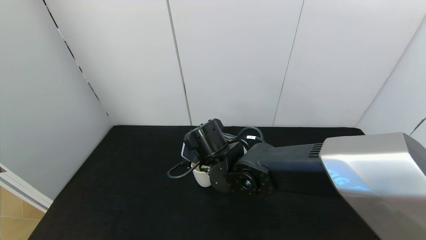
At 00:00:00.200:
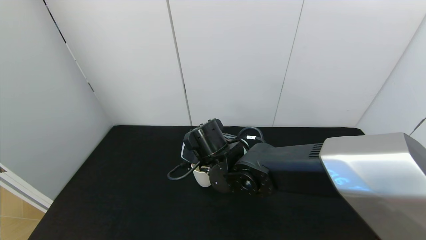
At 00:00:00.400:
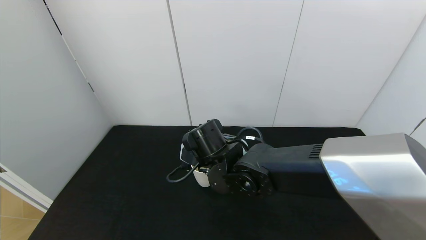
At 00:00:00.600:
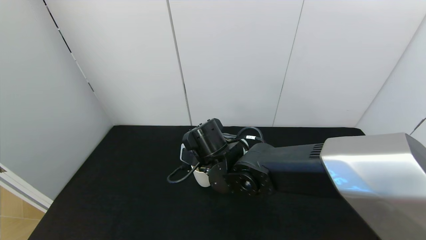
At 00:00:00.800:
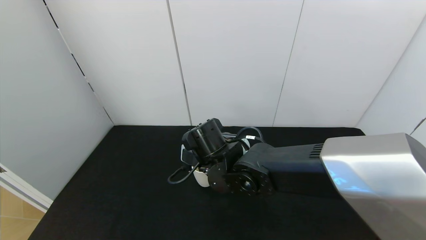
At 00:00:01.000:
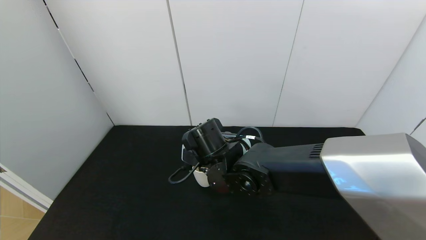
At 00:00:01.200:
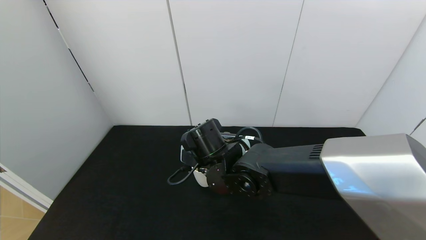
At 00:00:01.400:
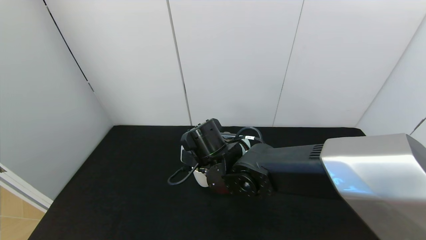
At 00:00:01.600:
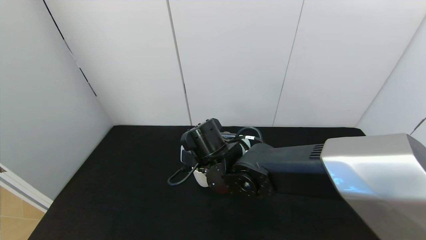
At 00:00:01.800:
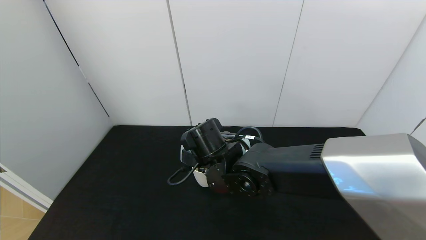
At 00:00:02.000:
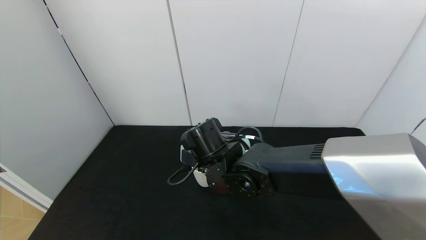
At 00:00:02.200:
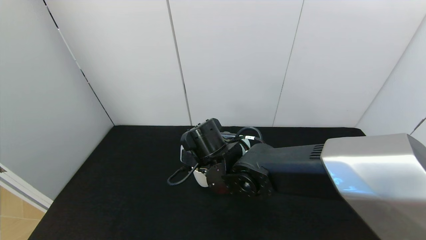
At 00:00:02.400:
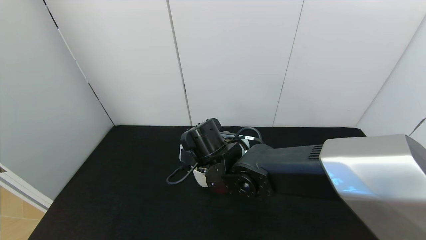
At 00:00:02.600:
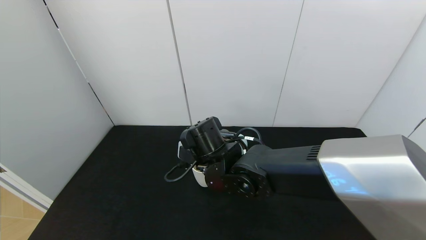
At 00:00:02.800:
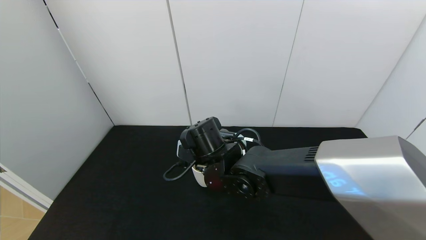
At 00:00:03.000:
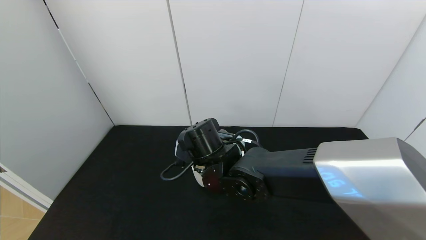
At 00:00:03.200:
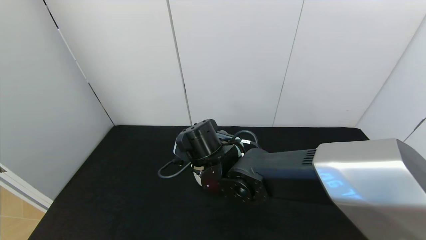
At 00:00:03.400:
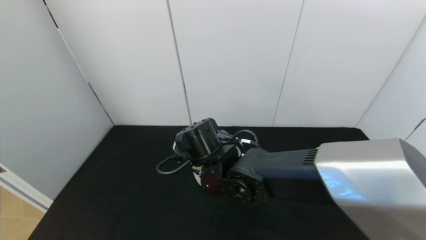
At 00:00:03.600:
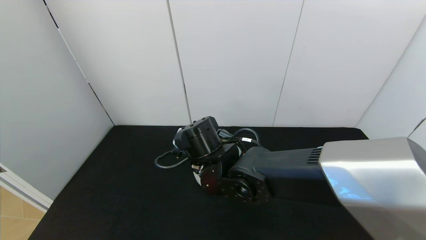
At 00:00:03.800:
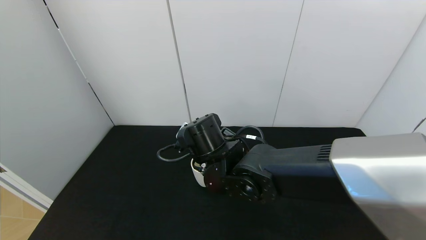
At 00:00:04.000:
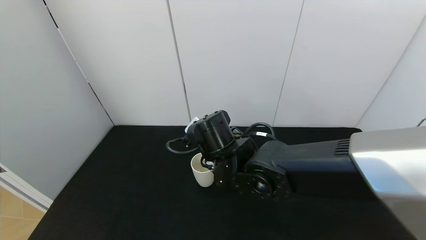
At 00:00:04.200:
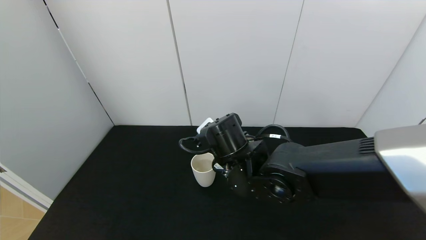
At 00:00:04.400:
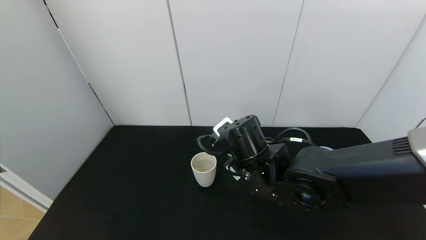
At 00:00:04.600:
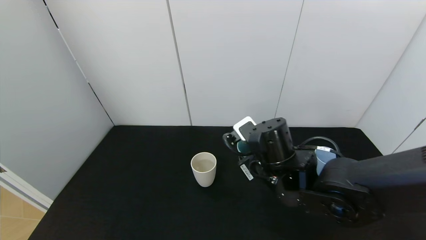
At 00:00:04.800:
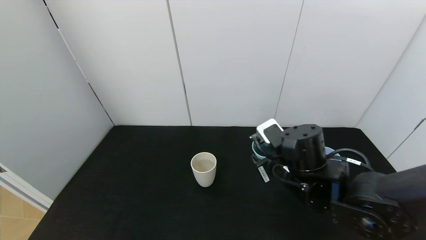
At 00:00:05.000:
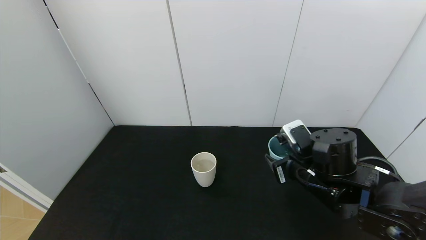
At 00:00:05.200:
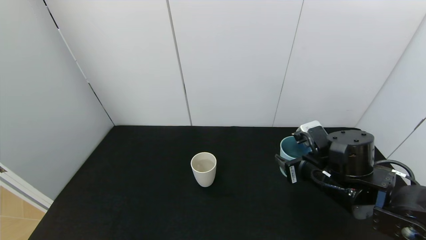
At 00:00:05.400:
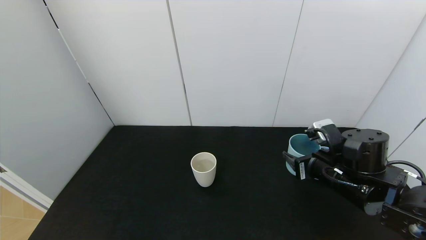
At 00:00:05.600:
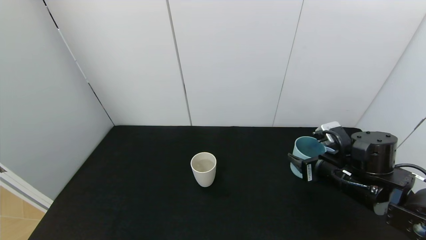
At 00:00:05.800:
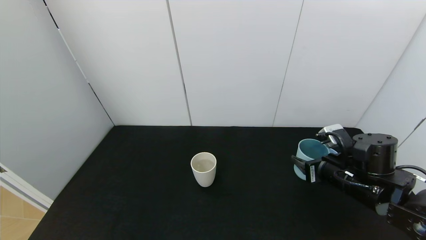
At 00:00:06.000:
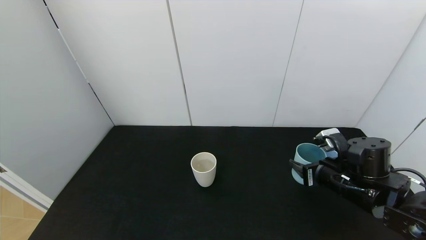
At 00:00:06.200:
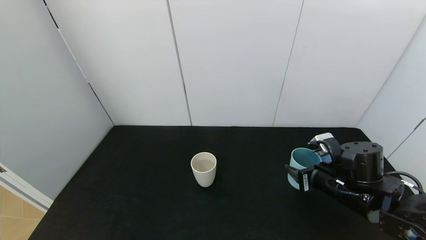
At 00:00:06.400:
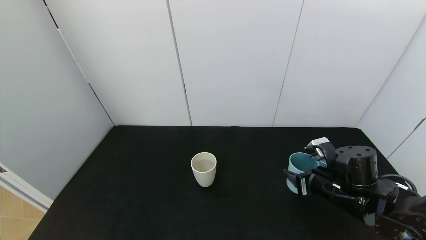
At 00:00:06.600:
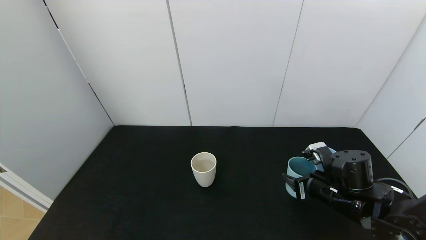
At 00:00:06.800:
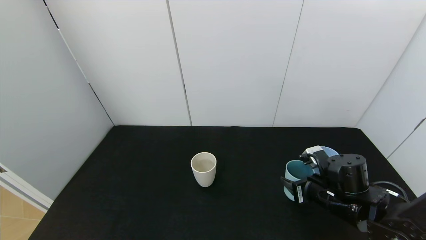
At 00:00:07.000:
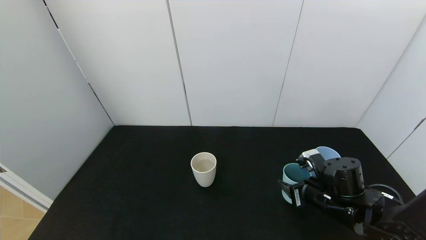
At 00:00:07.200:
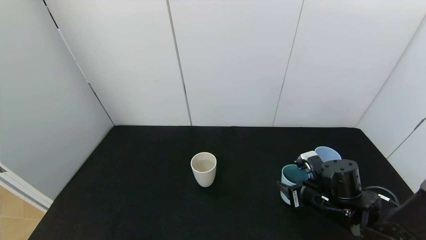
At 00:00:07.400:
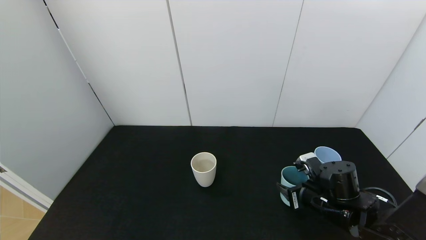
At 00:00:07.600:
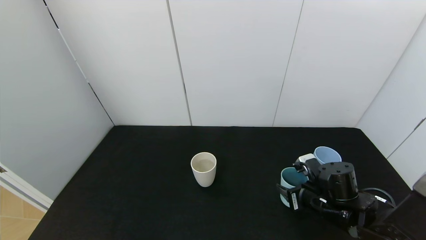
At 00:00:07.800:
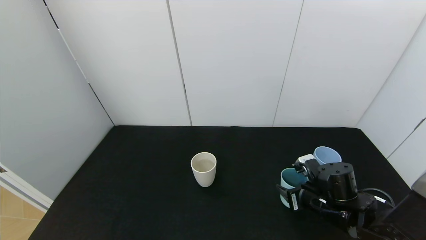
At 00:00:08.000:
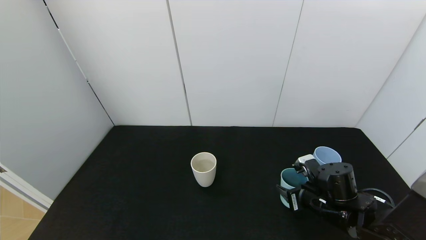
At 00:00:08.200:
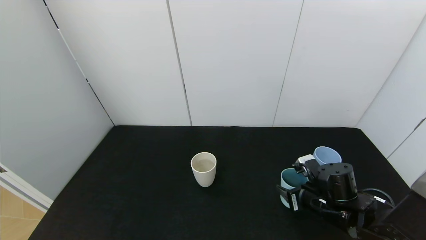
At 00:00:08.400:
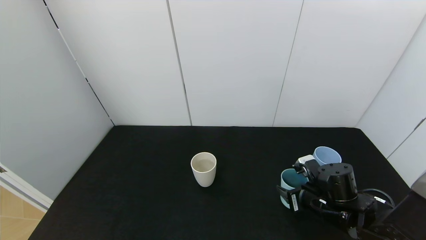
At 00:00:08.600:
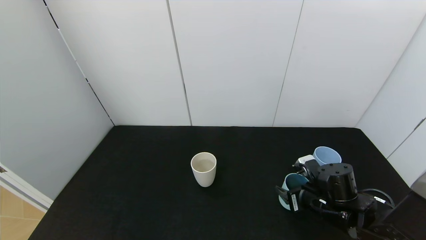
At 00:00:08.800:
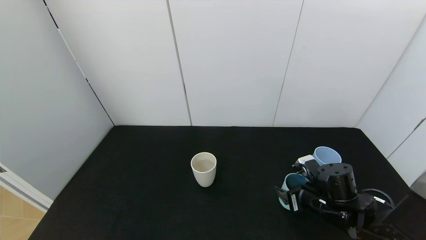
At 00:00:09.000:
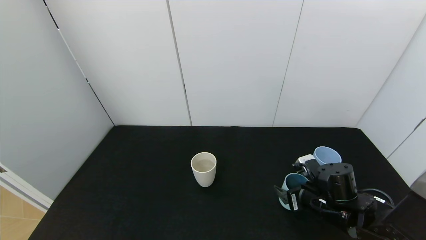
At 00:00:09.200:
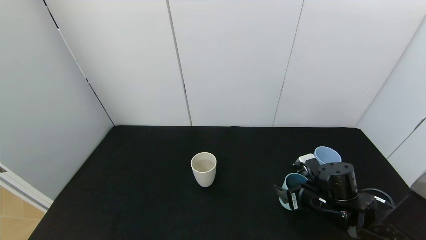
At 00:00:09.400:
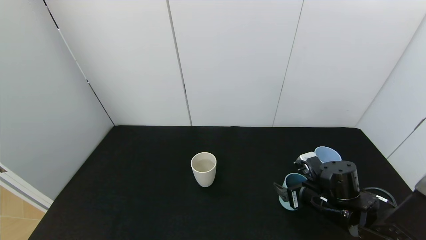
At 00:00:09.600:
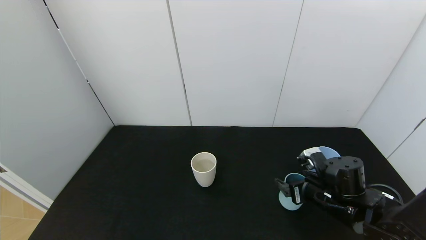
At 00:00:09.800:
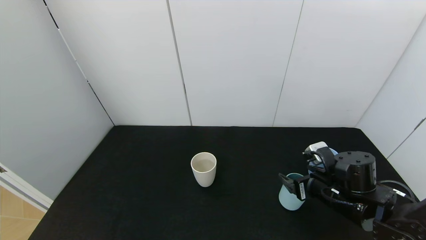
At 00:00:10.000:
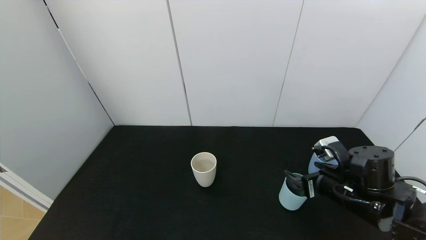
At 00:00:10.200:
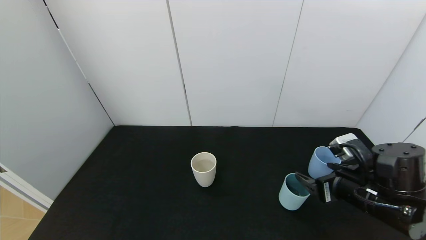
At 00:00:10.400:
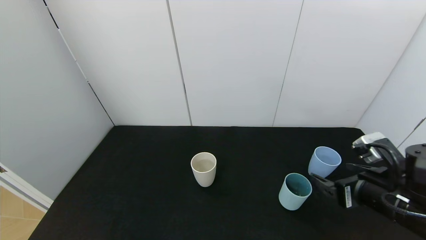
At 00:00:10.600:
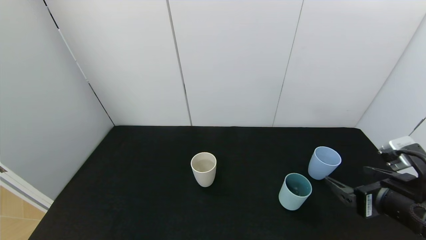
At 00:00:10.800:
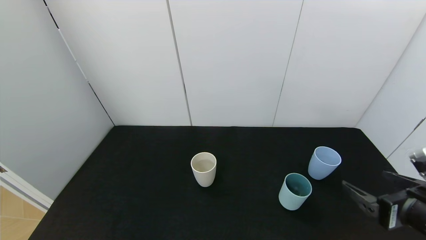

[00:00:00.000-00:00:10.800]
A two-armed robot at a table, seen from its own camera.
Task of the whole recording: use the gripper to pour the water into the other two cups on black table.
Step, 00:00:00.000 to 00:00:04.400: Pour water from green cup to white cup with the right gripper.
Step, 00:00:04.600 to 00:00:10.800: Place the green cup with the right gripper.
00:00:00.000 to 00:00:03.000: The grippers make only small movements.
00:00:03.000 to 00:00:04.600: The right gripper shifts roughly 10 cm to the right.
00:00:04.600 to 00:00:06.200: The right gripper moves to the right, some 15 cm.
00:00:06.200 to 00:00:07.800: The right gripper moves downward, approximately 5 cm.
00:00:09.200 to 00:00:10.800: The right gripper shifts approximately 20 cm backward, upward and to the right.

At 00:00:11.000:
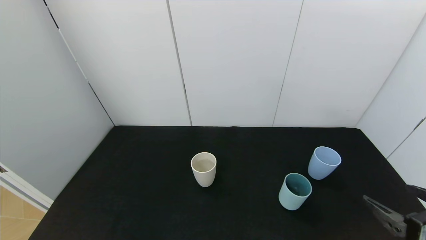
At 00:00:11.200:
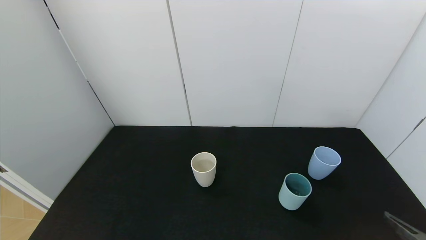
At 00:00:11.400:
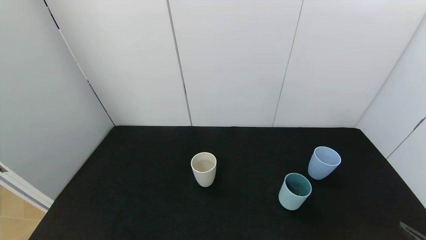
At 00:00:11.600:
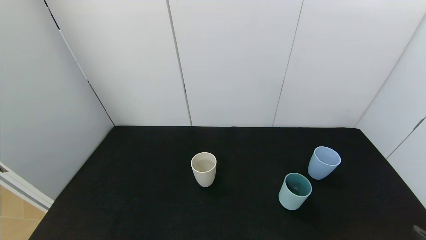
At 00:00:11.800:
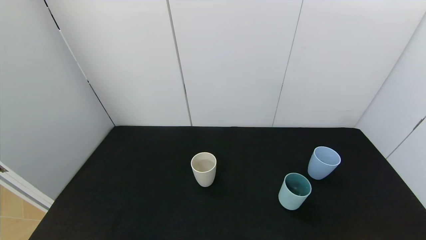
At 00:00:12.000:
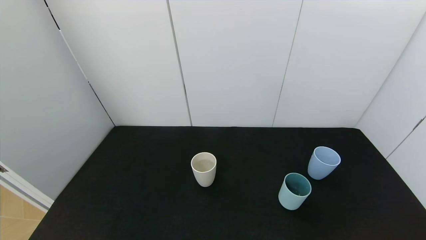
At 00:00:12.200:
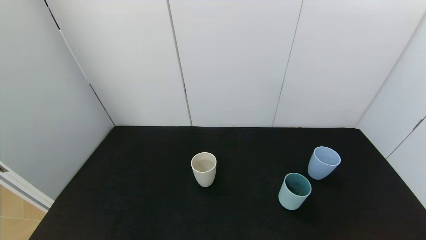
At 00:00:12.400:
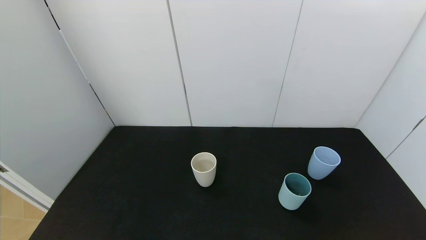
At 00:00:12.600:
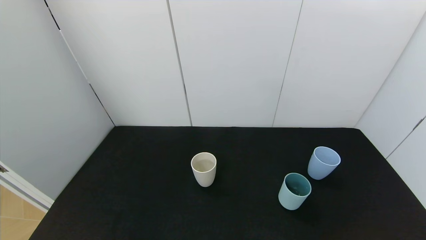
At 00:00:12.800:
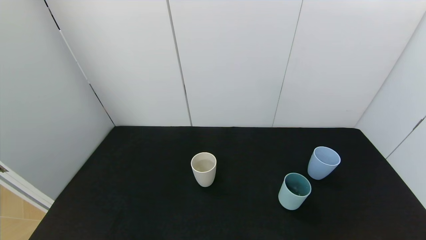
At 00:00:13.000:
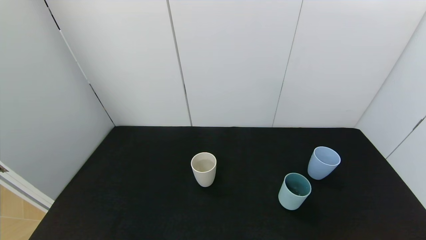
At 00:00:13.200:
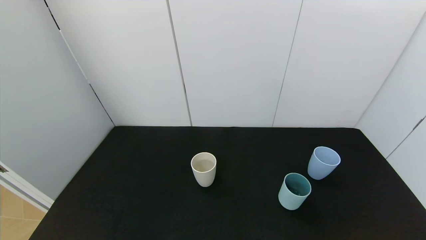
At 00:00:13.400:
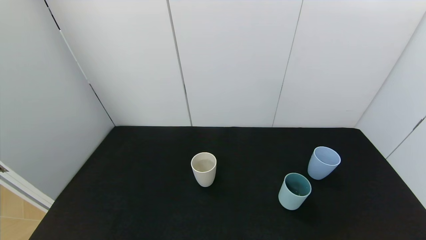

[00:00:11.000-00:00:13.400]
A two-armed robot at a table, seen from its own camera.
Task of the whole recording: use the gripper to pour the water into the other two cups on black table.
00:00:11.000 to 00:00:12.200: The right gripper goes about 10 cm backward.
